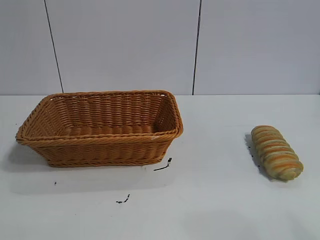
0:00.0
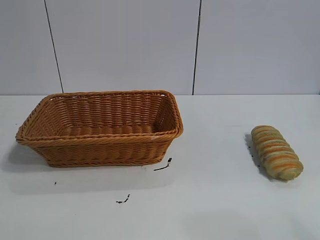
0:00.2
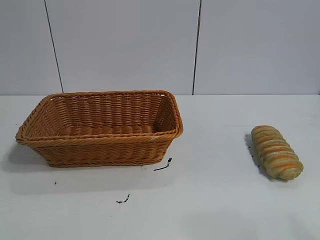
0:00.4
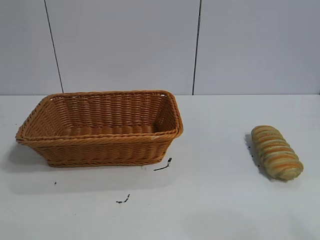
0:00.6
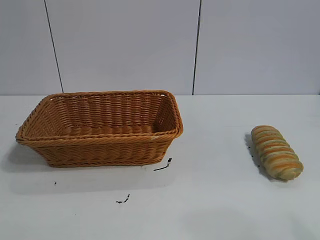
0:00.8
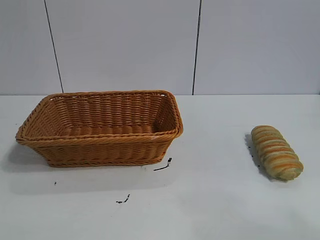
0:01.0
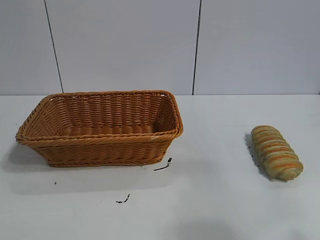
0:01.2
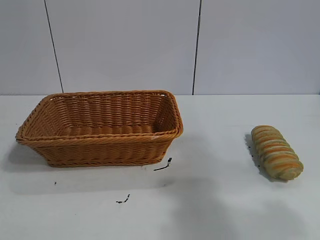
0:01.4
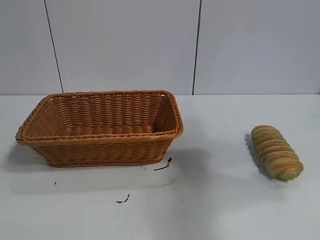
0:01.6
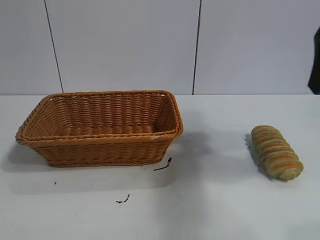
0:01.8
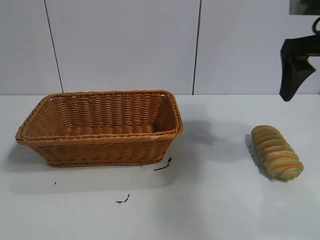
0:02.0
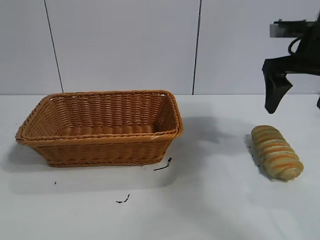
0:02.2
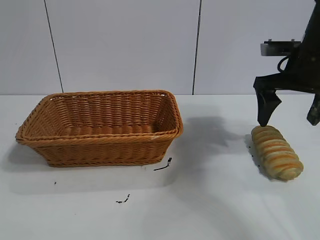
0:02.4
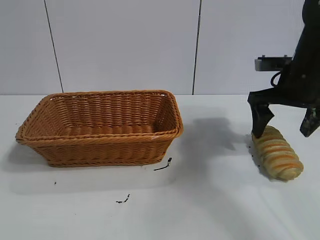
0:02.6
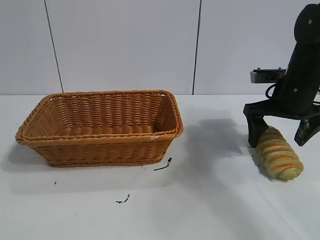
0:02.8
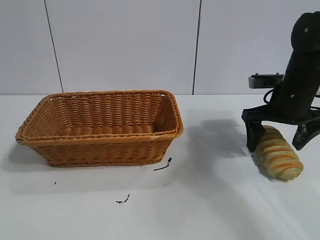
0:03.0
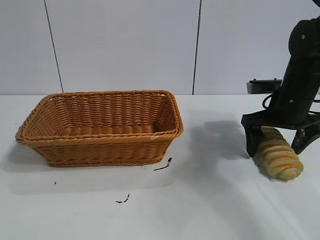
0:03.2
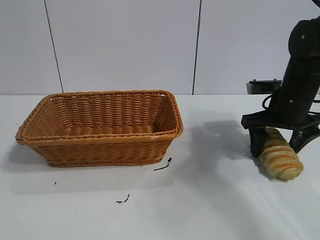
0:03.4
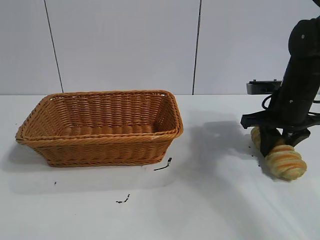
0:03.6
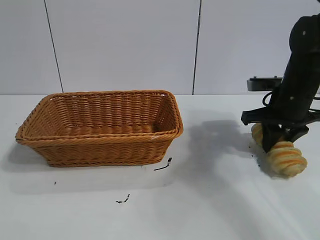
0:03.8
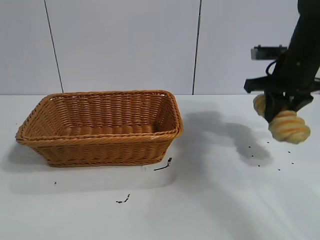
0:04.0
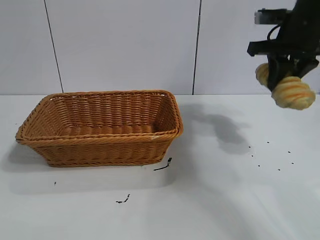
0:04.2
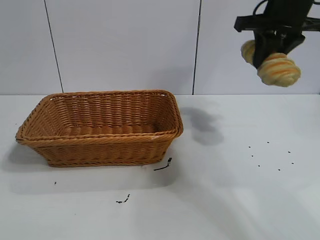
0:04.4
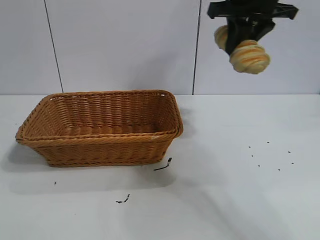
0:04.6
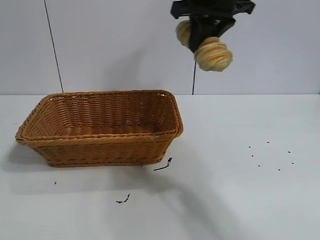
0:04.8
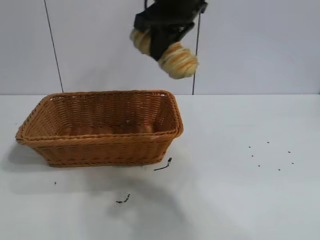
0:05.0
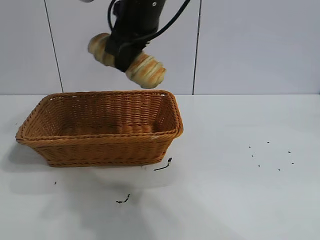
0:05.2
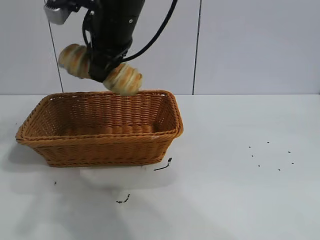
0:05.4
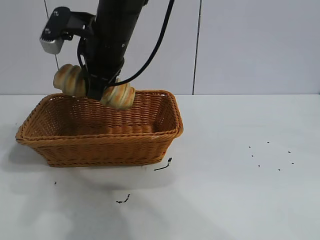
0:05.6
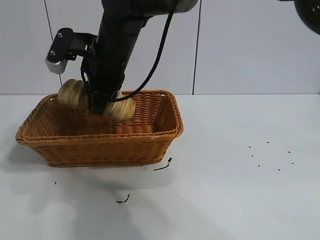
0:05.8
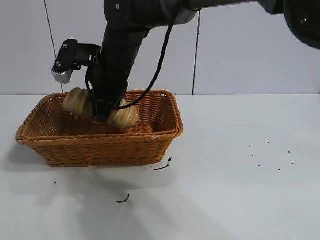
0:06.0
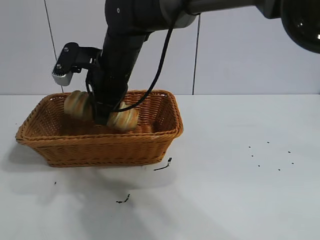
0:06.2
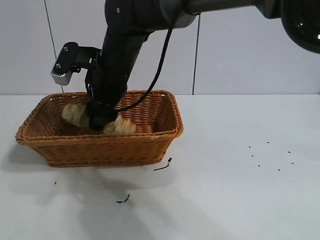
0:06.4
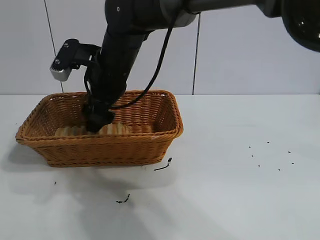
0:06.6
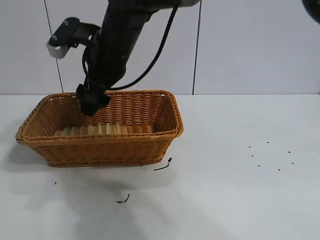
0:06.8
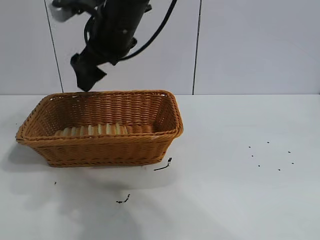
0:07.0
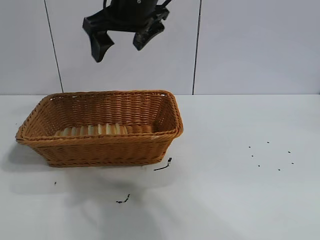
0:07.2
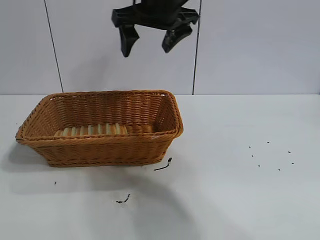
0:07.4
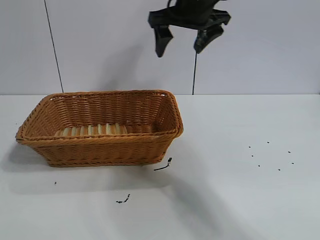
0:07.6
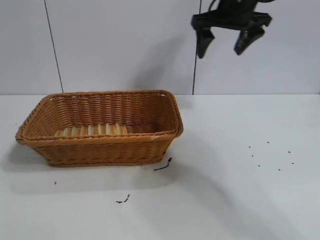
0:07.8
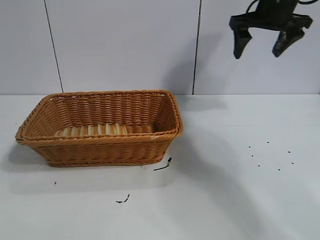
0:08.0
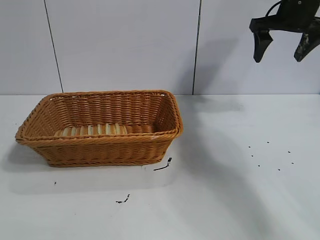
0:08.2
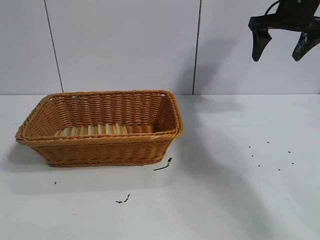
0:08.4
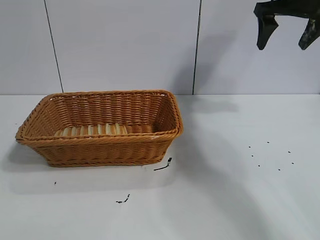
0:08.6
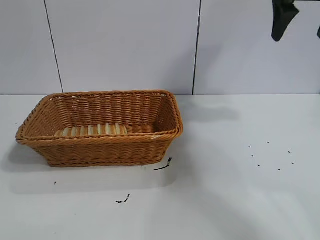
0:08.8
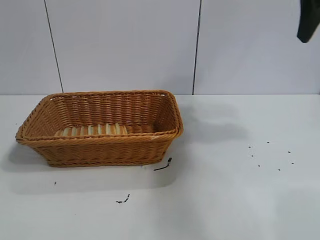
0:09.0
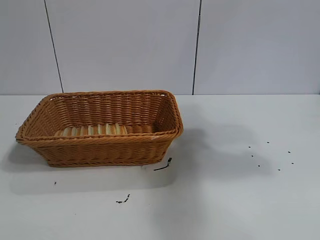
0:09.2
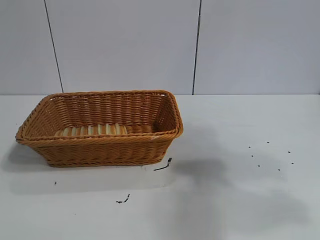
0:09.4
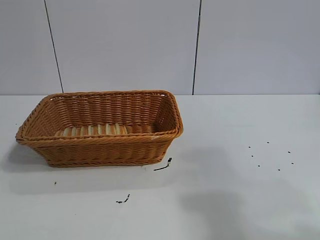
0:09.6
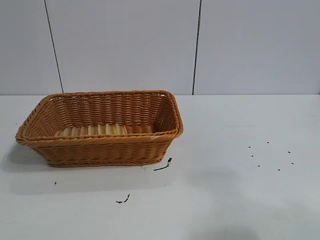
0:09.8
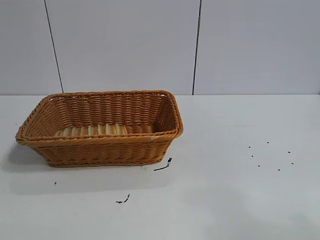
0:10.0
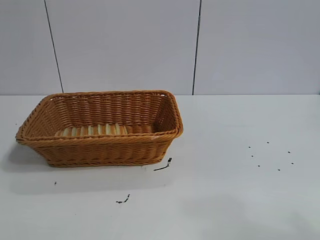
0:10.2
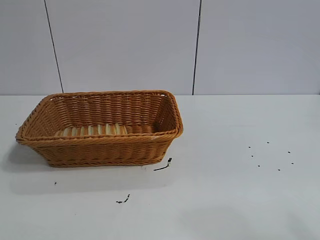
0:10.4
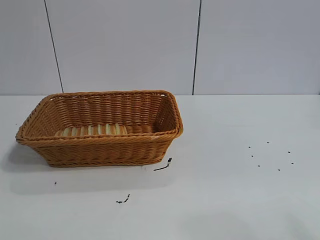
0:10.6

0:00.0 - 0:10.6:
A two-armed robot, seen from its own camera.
Task of the whole recording: pick up the long bread and put it into the basket.
Step, 0:01.8 - 0:03.8: Grasp the long bread with right gripper.
Step, 0:04.0 - 0:06.8: Place the long bread in the basket with right gripper.

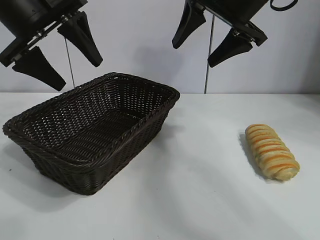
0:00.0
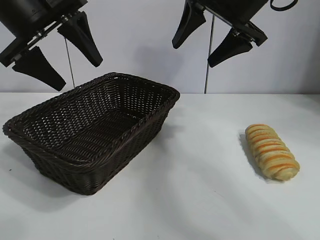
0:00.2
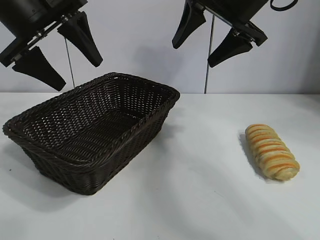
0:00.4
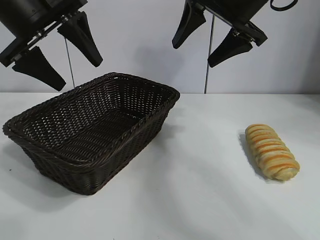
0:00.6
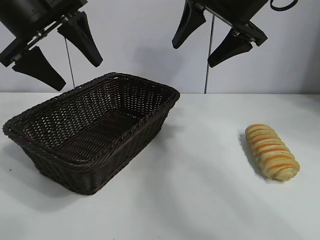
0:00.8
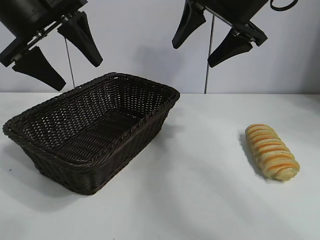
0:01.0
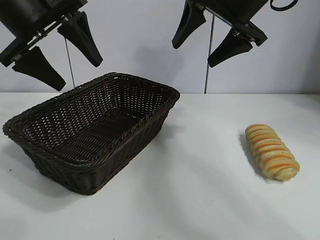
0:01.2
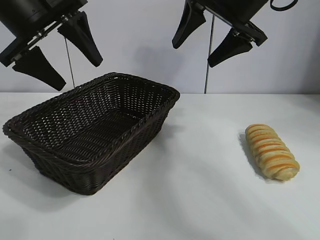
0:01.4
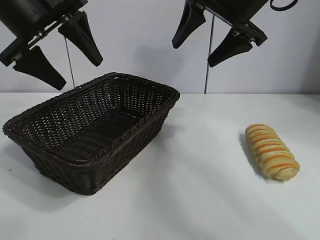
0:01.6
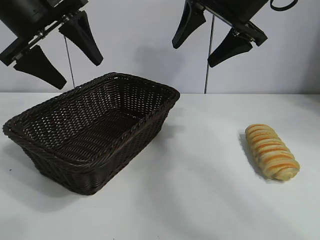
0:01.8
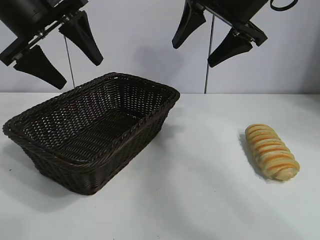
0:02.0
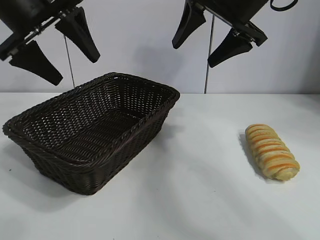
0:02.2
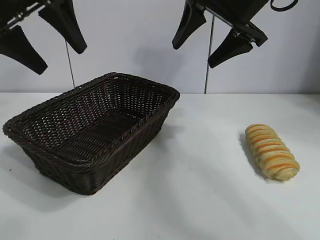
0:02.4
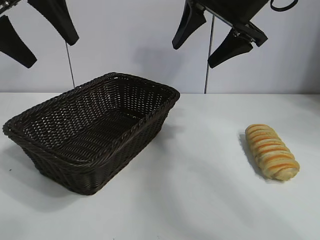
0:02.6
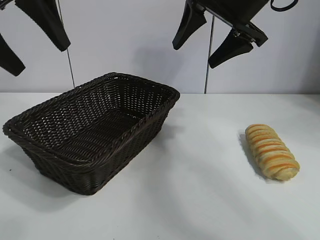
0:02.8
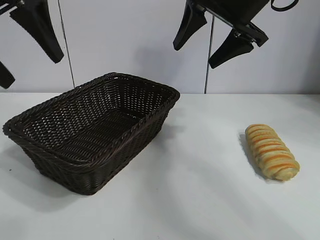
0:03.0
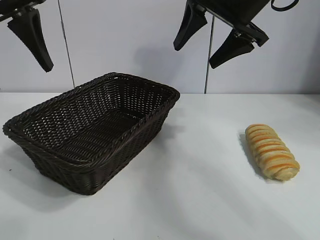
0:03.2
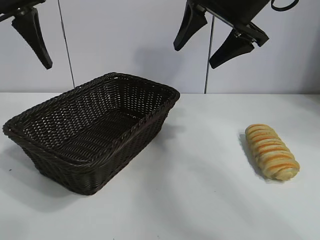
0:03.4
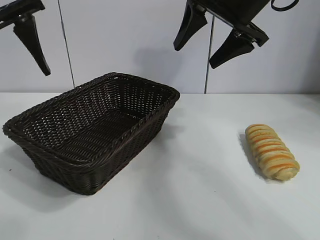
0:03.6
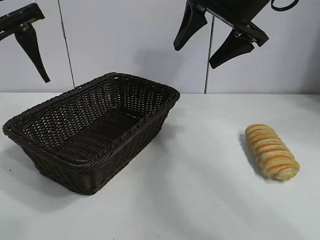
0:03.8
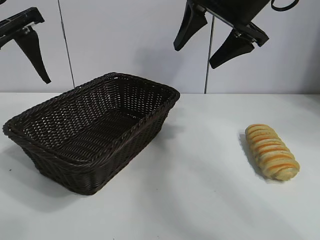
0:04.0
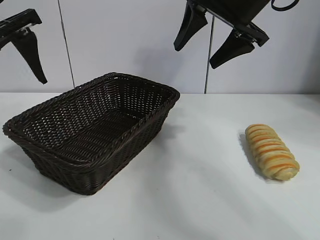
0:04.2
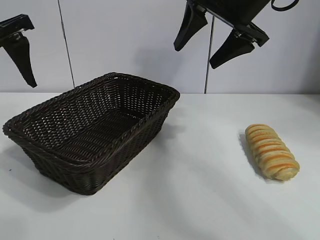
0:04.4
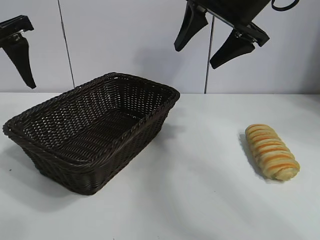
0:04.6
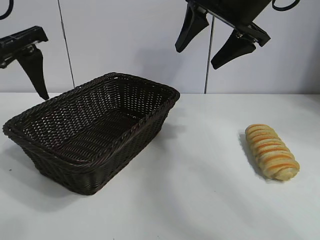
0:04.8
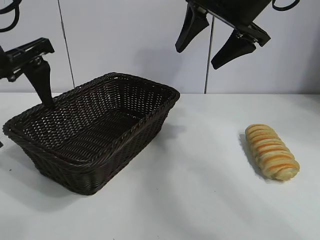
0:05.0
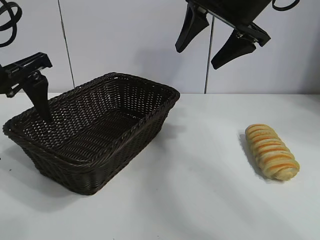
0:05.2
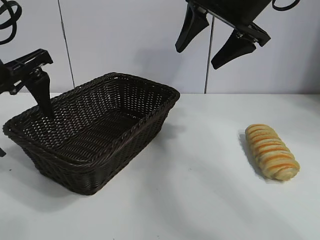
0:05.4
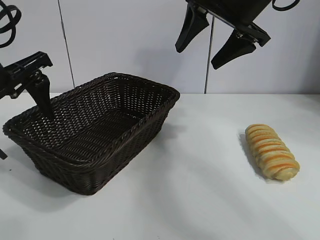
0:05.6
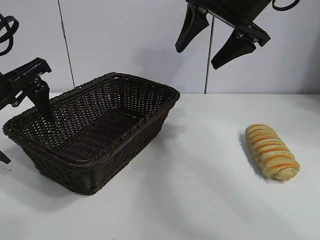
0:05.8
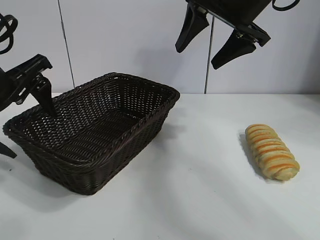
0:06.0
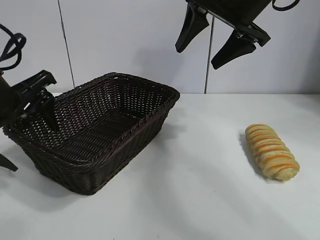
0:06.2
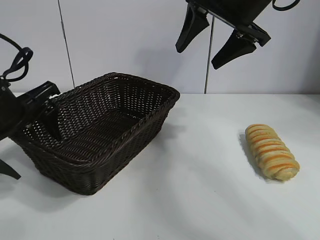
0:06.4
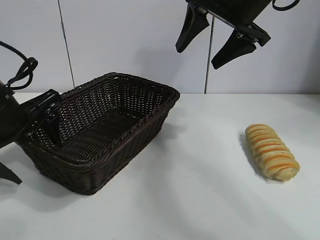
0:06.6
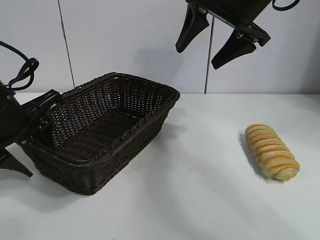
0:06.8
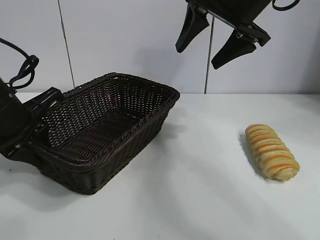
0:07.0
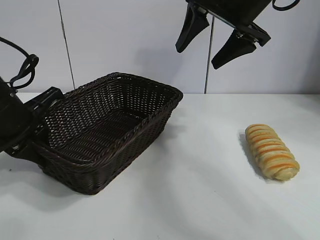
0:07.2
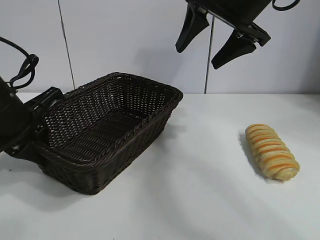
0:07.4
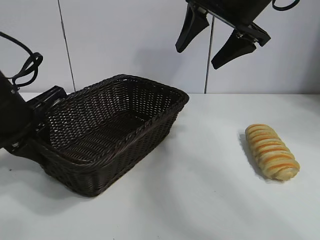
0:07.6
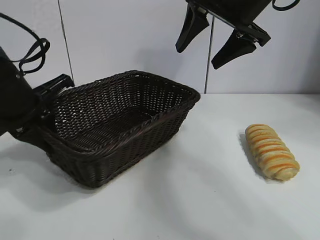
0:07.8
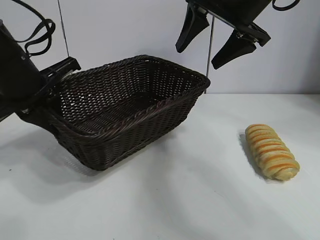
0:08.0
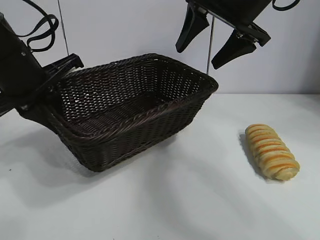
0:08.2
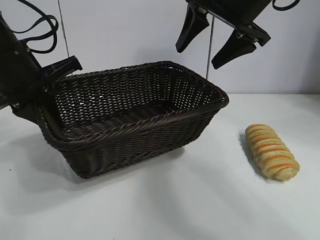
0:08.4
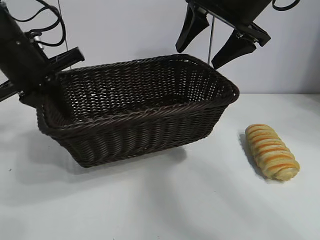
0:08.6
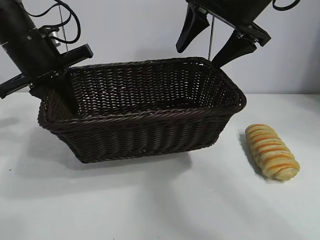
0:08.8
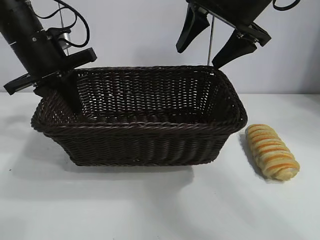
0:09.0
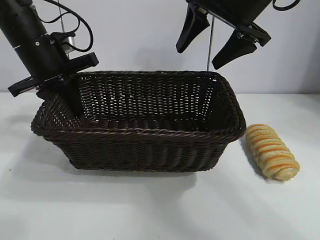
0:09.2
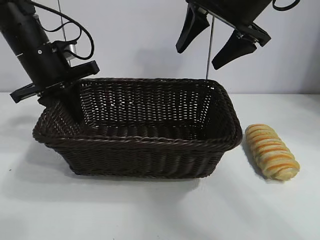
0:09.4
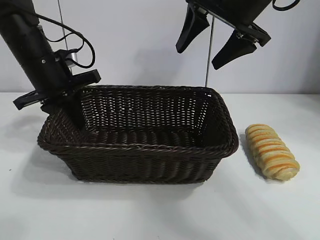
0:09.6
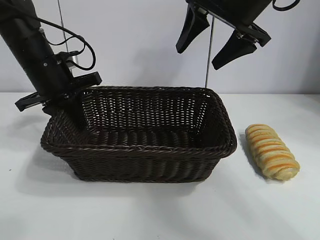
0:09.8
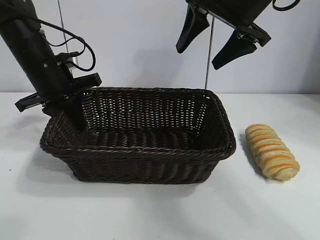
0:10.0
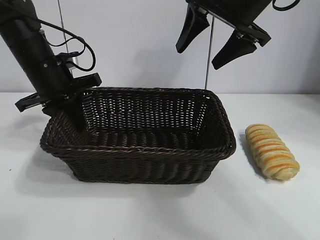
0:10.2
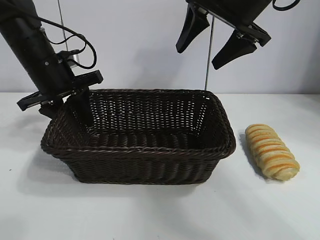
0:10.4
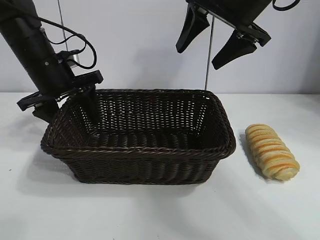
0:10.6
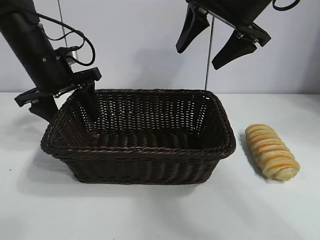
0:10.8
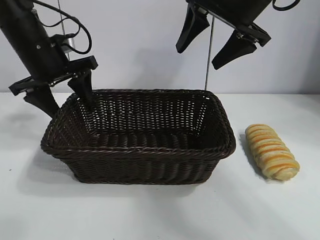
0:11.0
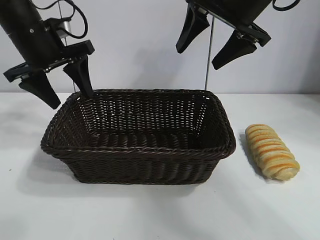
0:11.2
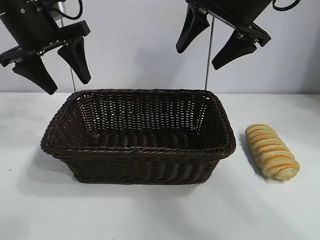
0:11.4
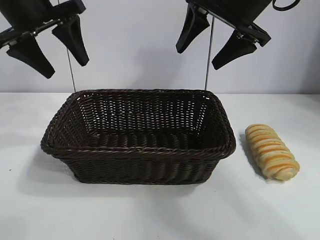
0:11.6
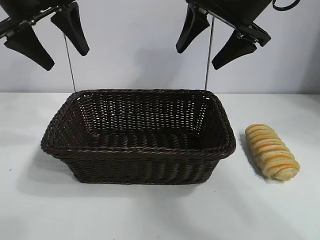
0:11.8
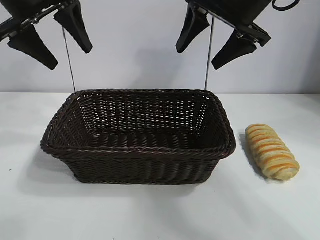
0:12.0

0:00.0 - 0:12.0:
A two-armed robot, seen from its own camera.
Task of the whole recording: pick up the long bread and put it into the basket.
Step, 0:01.4 - 0:07.0: Grasp the basket with the left gripper.
Step, 0:07.2 - 0:10.6: Place the basket in the center of the table with the left gripper.
